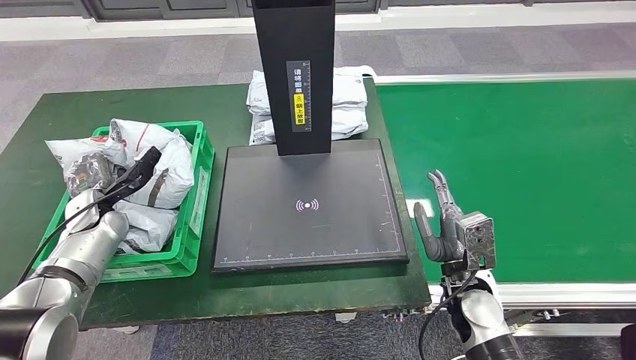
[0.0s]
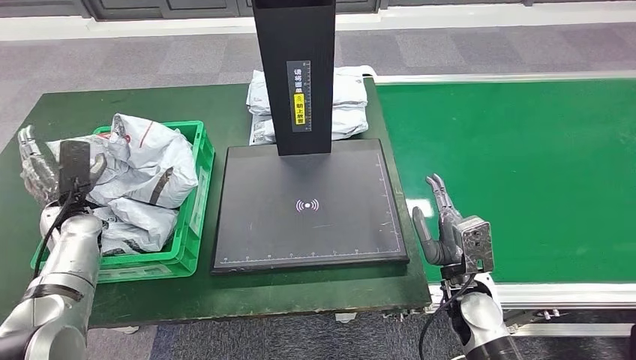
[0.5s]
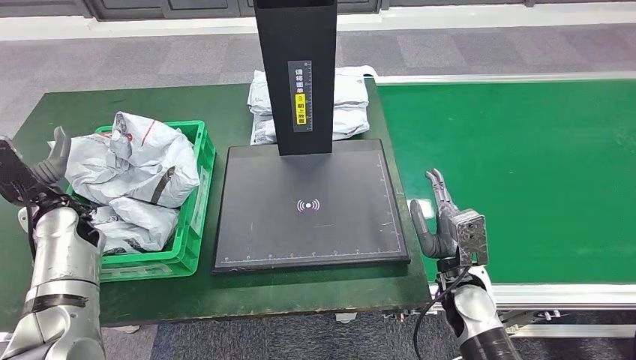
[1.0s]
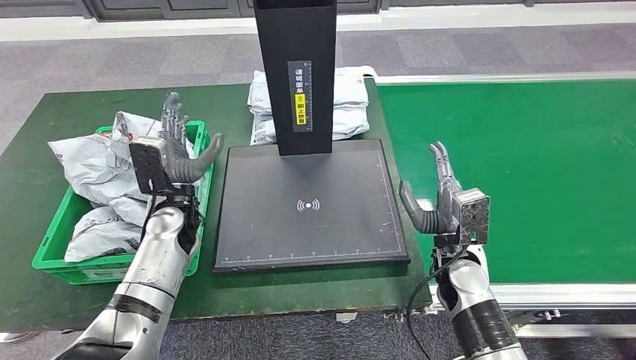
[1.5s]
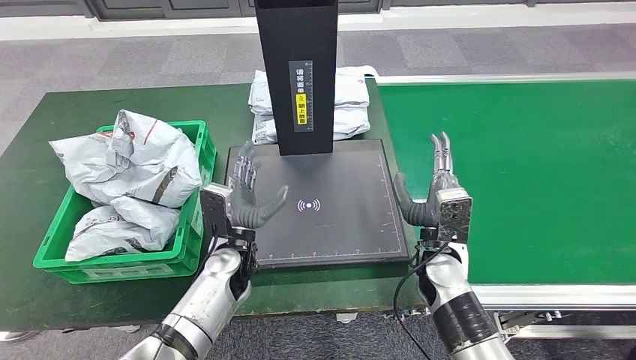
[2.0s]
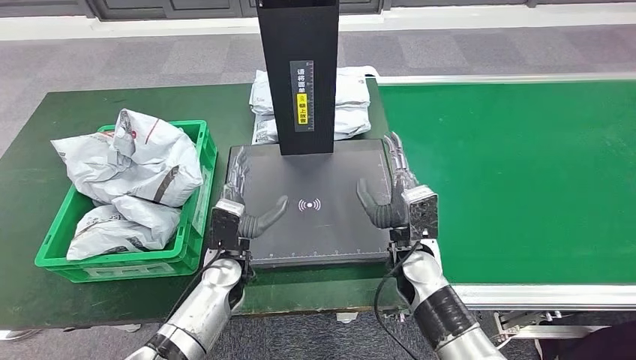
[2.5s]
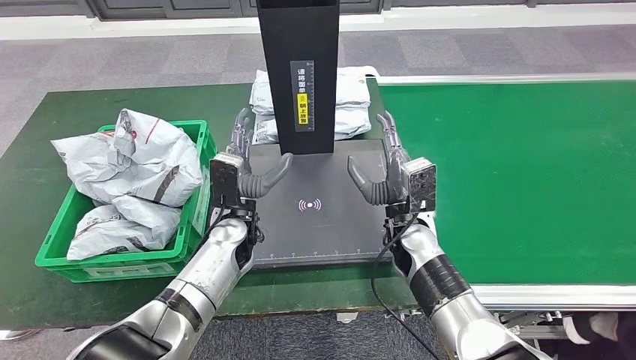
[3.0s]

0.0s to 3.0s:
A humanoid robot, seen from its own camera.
Step, 0.0s to 3.0s: Place the parcel into the delivery box.
0.0s to 1.5s: The right hand shifts by some 5 cm. The left hand shifts some 20 cm to the right.

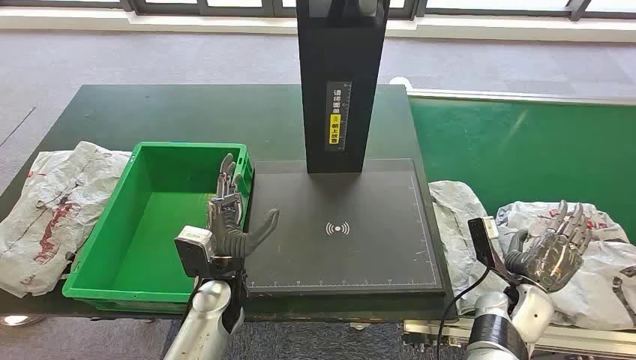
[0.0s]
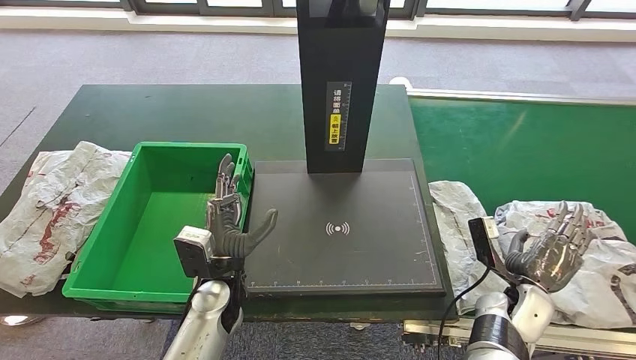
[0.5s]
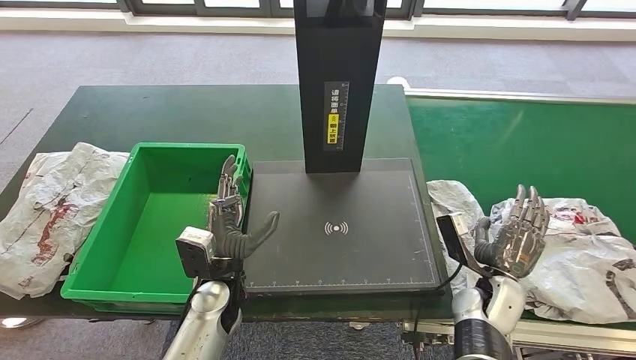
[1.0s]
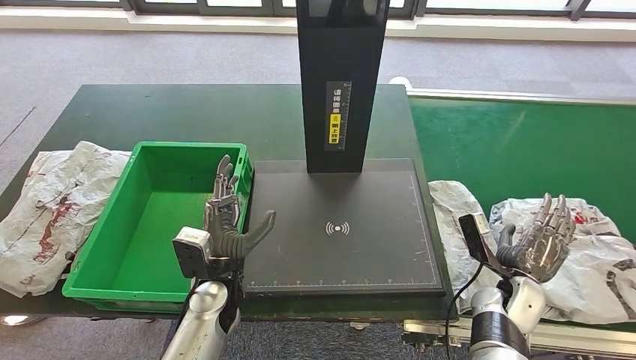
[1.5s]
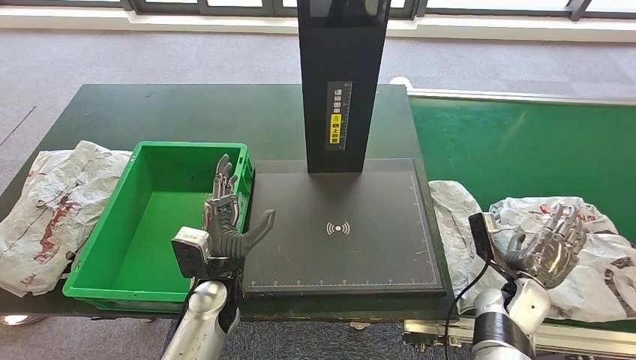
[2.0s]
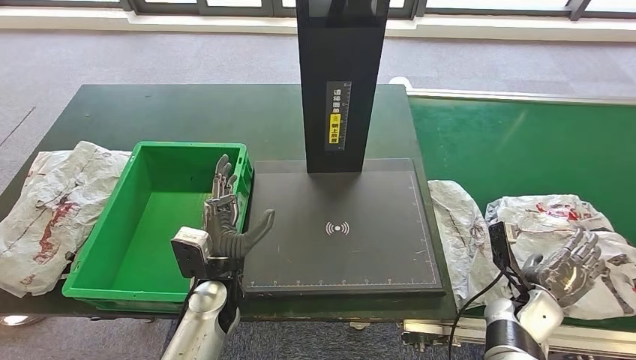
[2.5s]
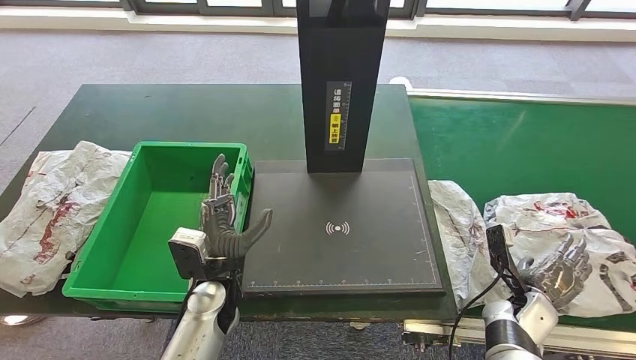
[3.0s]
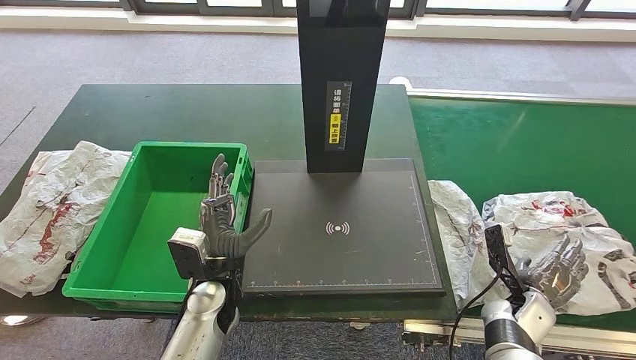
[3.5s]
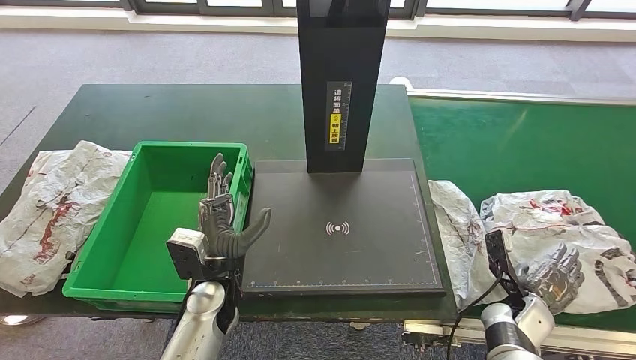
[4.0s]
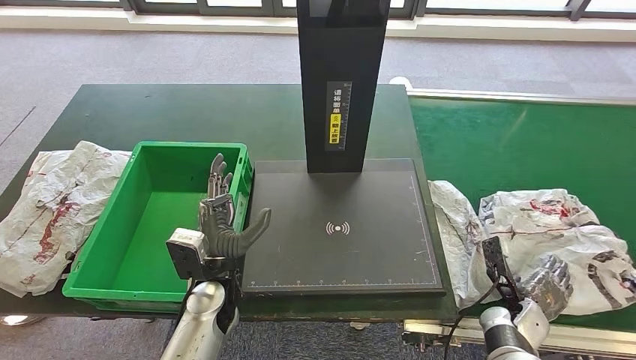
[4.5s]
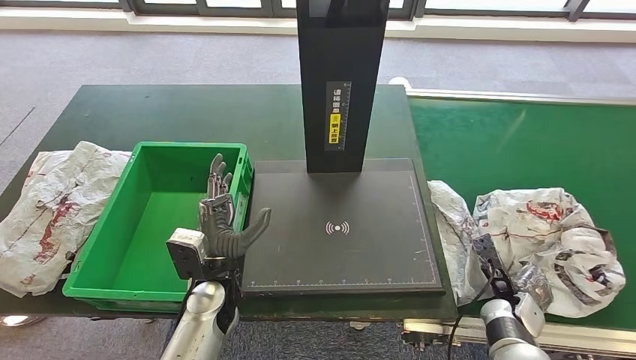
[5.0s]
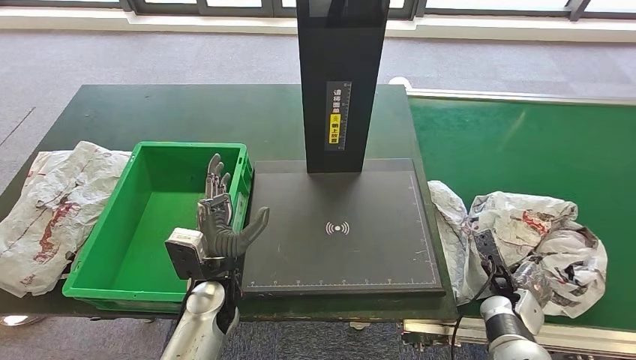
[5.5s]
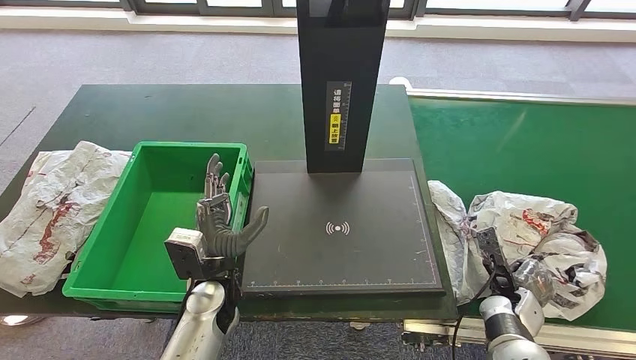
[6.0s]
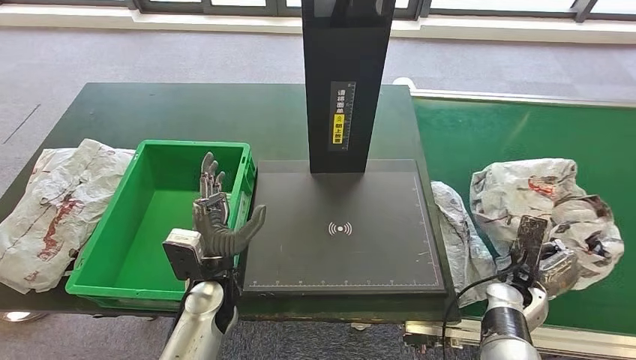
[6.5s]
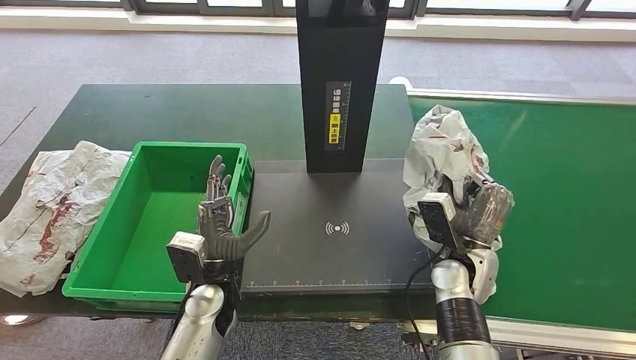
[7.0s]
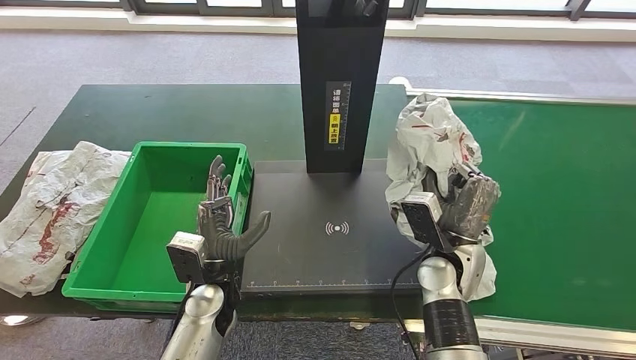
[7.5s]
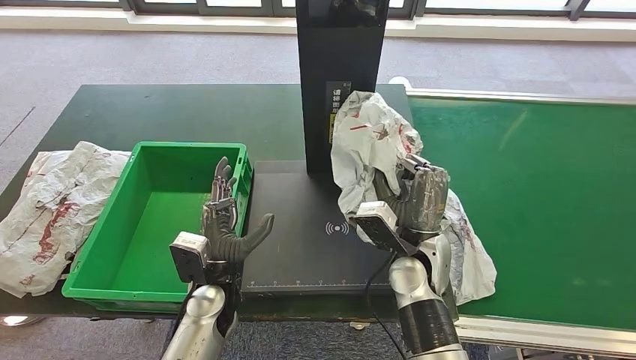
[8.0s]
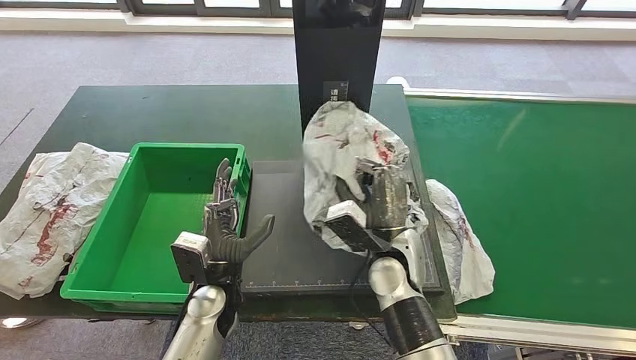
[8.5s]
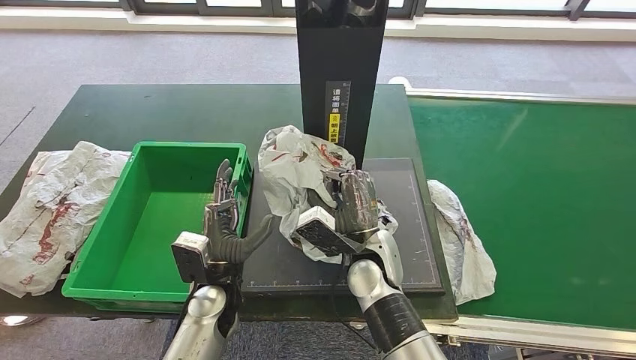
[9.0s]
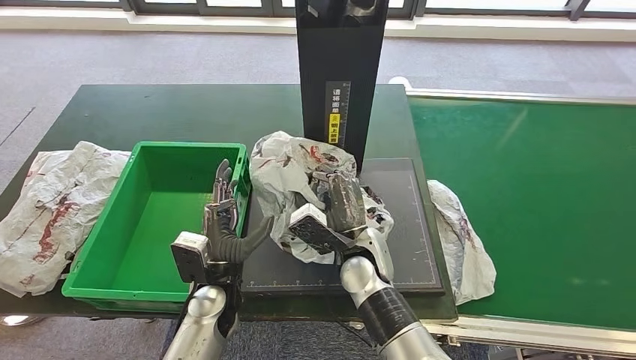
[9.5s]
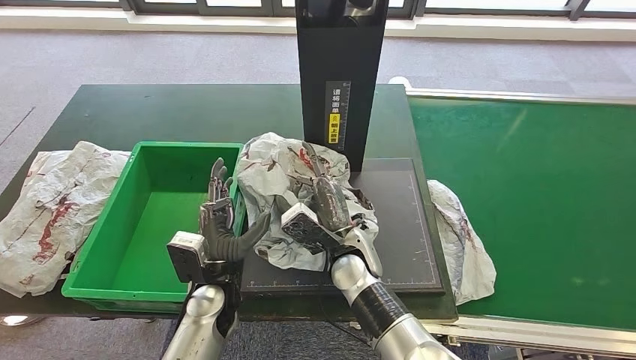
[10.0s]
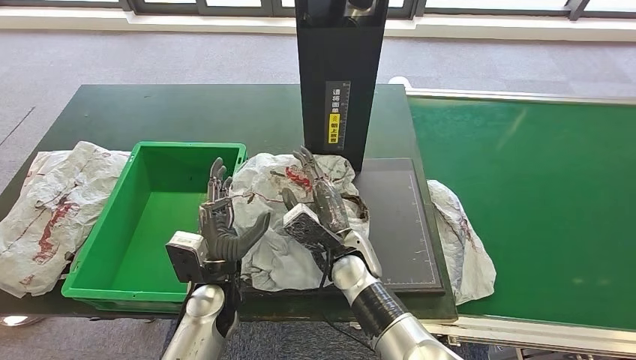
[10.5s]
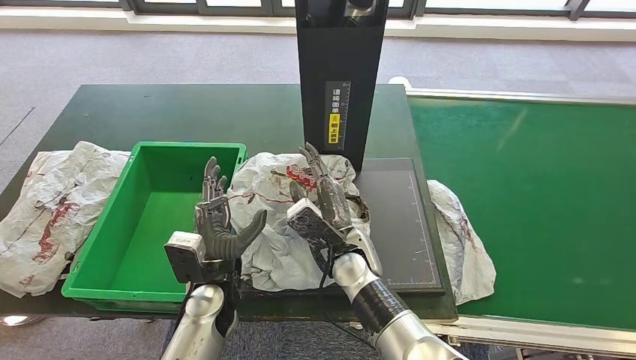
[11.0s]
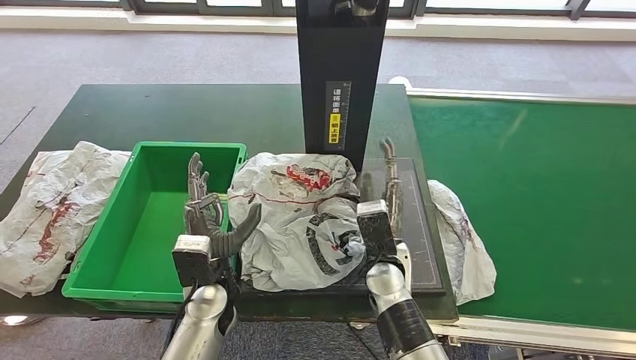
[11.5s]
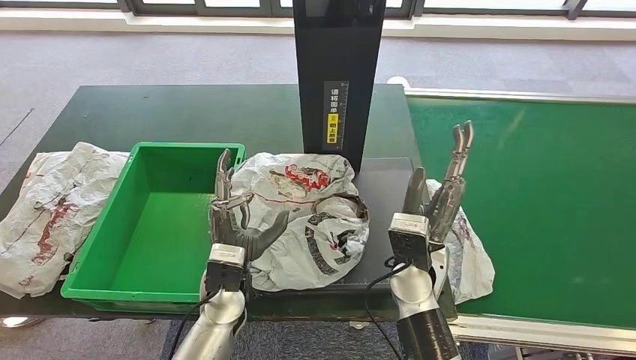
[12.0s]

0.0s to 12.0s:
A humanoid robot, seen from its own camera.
Step, 0.0s to 7.5s: Take the parcel off the conveyor belt.
2.0s to 4.0s: The right hand moves roughly 5 cm.
6.0s to 8.0s: The right hand goes approximately 25 cm to the left and upward.
8.0s to 10.0s: The right hand goes approximately 10 cm to the left.
10.0s to 12.0s: The right hand is displaced to the right by some 10 cm.

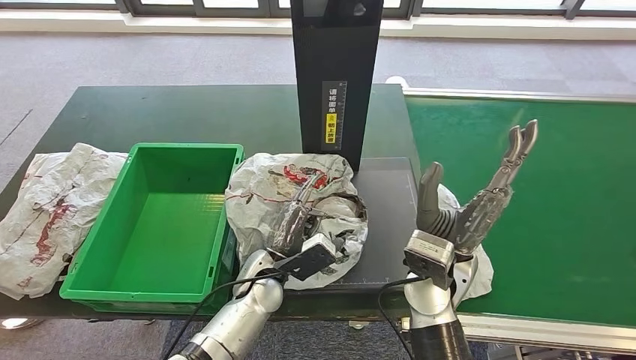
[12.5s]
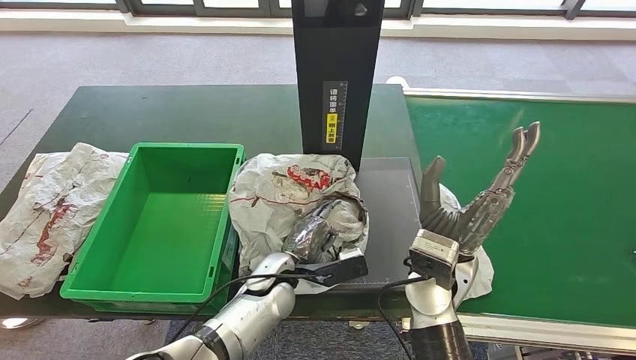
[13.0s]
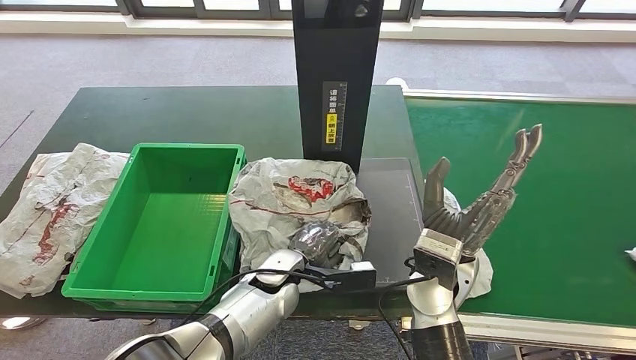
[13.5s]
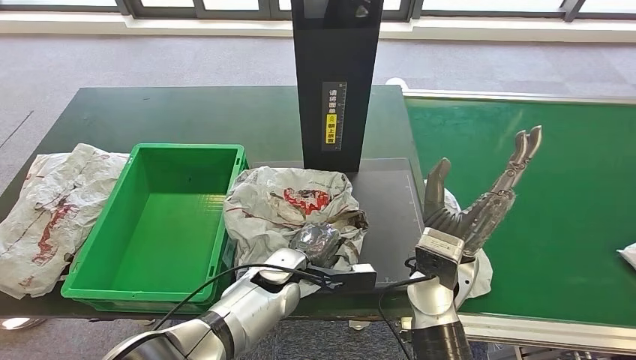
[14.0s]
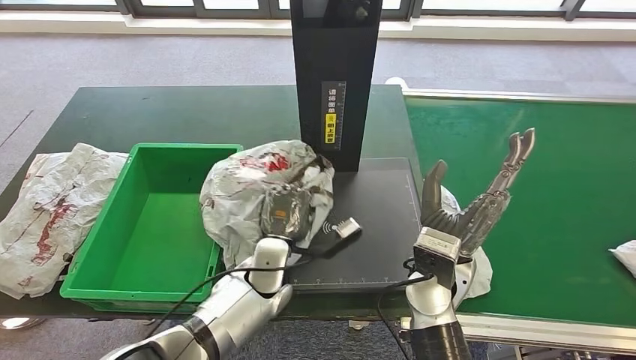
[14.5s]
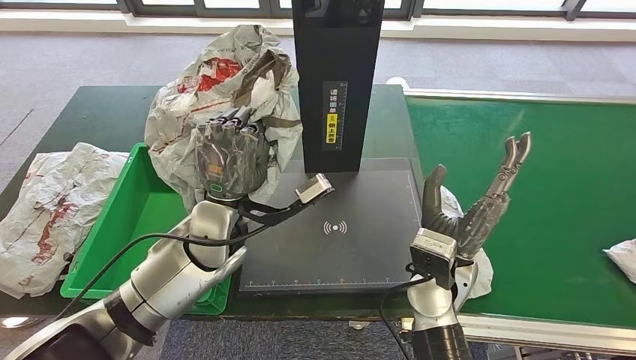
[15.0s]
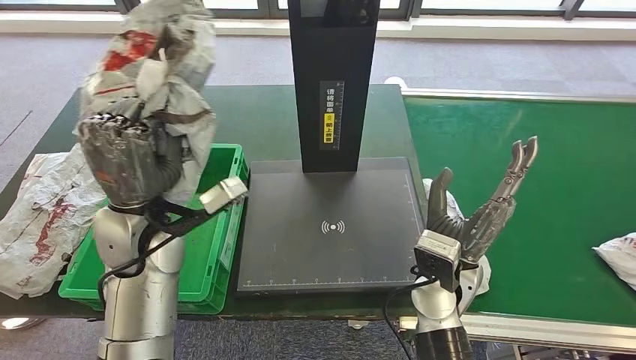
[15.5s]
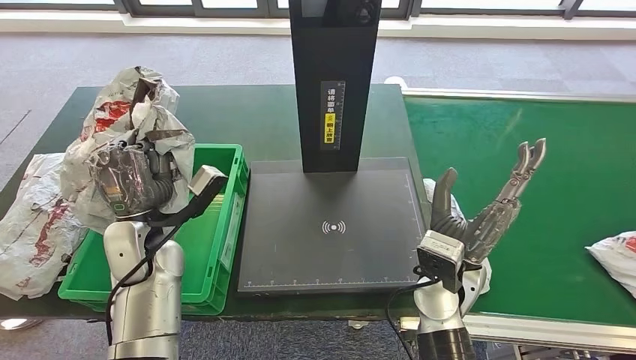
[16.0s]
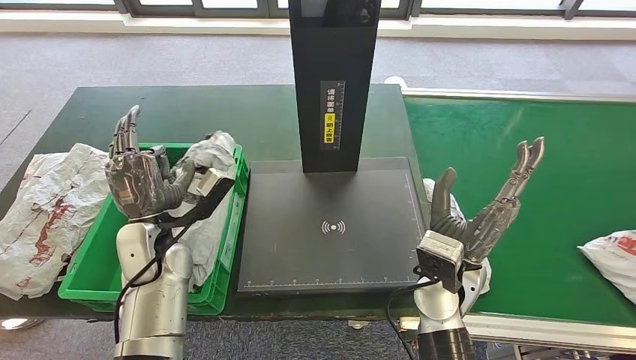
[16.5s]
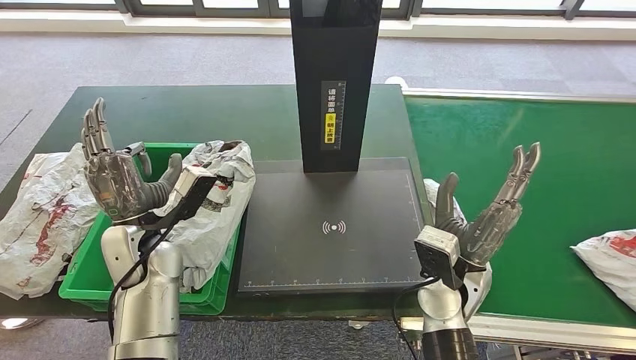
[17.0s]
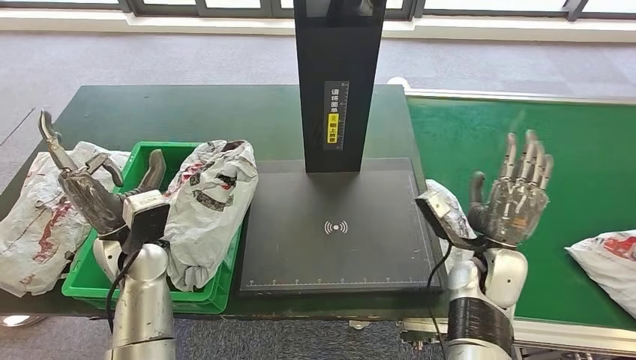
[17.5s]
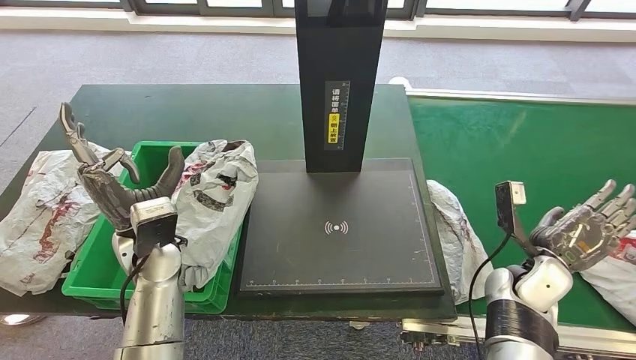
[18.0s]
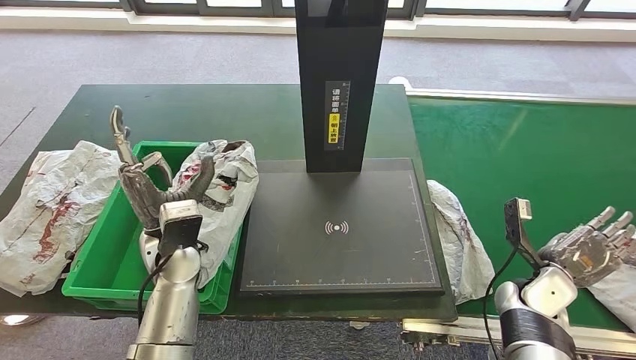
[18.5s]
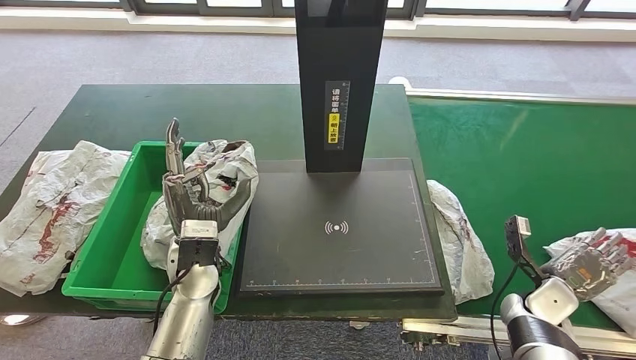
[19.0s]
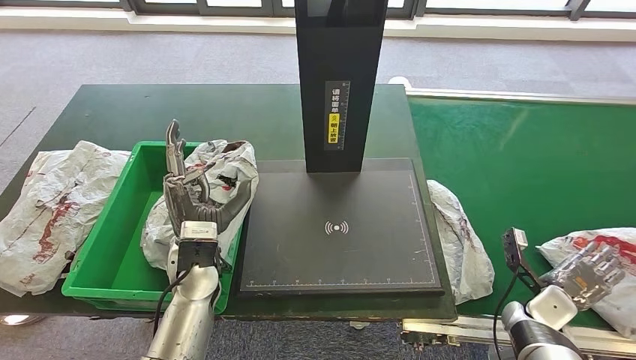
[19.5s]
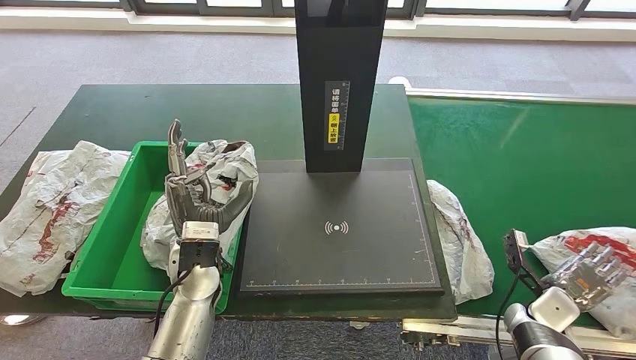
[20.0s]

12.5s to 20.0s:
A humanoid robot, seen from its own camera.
Step, 13.0s to 15.0s: Pick up the parcel from the inbound machine.
Step, 15.5s to 17.5s: Put the parcel inside the courier box.
18.0s to 20.0s: The left hand shifts approximately 5 cm to the right; the right hand moves downward and to the right, roughly 10 cm.
